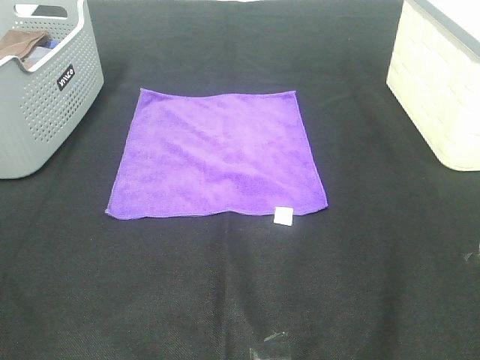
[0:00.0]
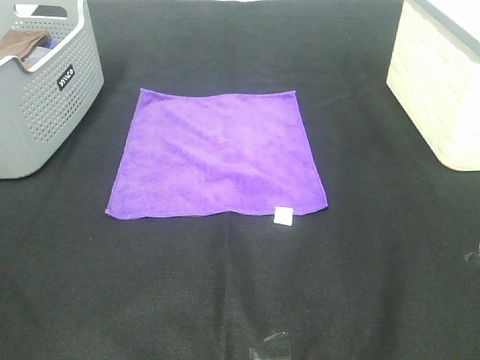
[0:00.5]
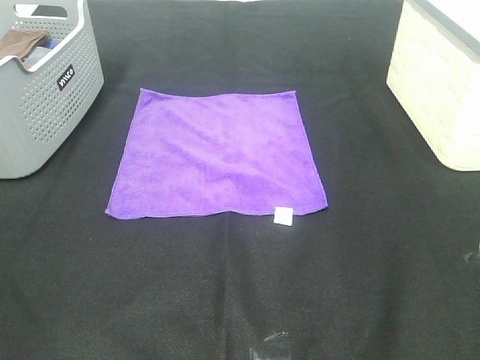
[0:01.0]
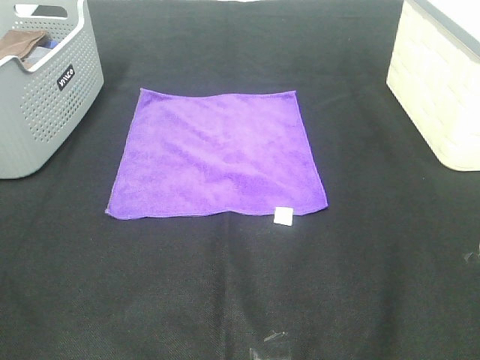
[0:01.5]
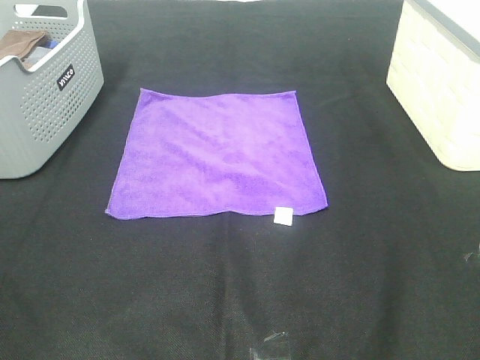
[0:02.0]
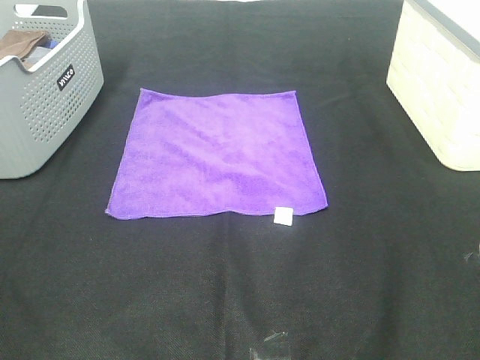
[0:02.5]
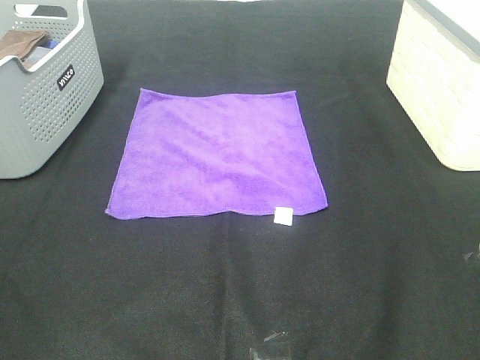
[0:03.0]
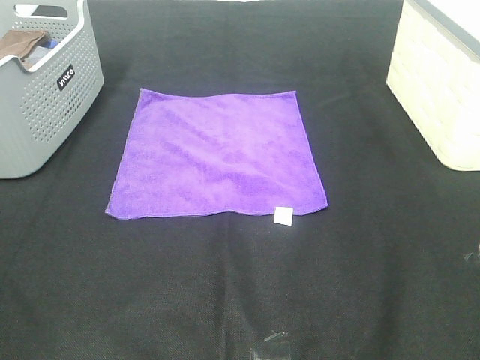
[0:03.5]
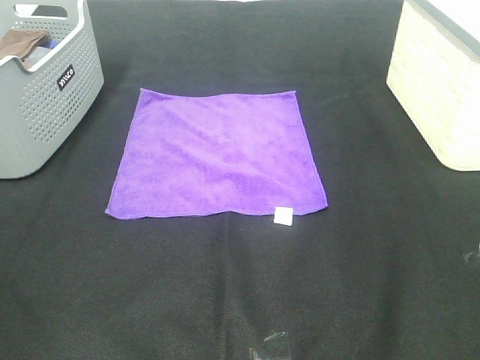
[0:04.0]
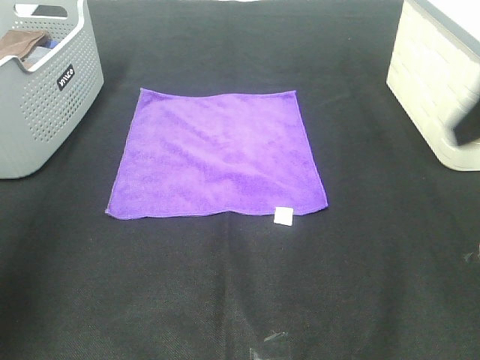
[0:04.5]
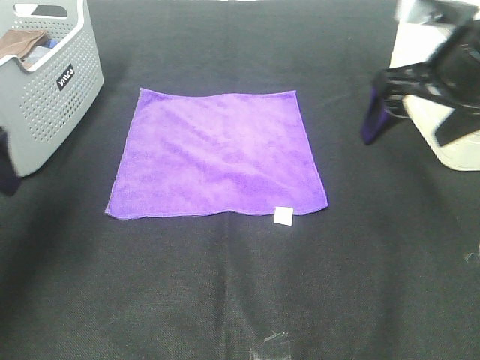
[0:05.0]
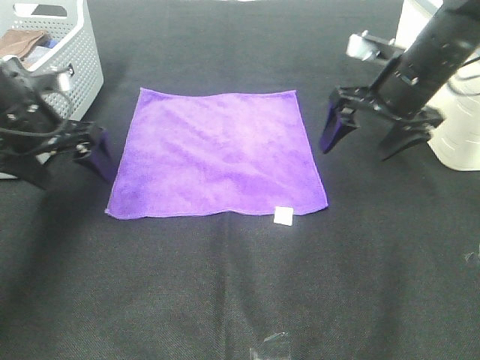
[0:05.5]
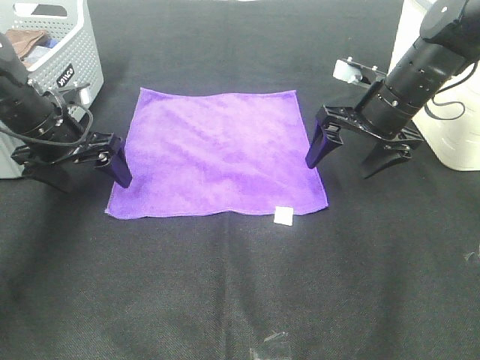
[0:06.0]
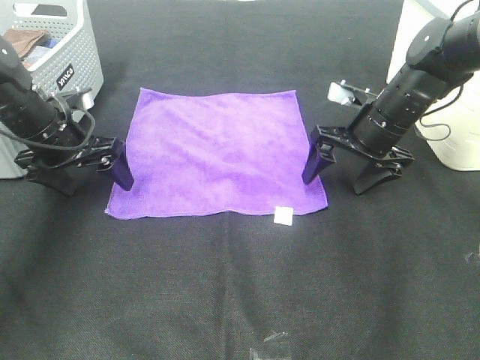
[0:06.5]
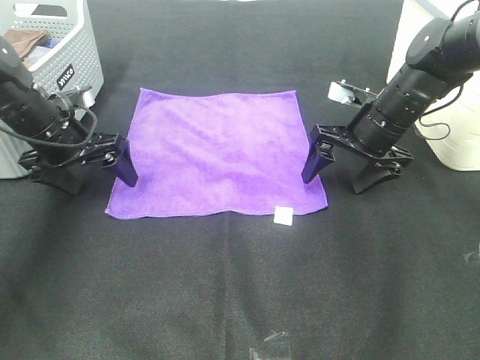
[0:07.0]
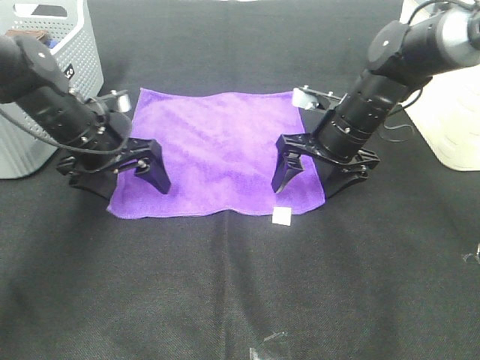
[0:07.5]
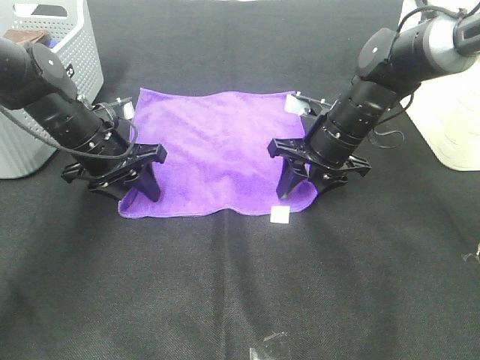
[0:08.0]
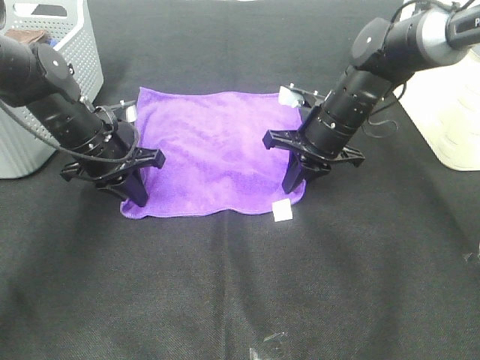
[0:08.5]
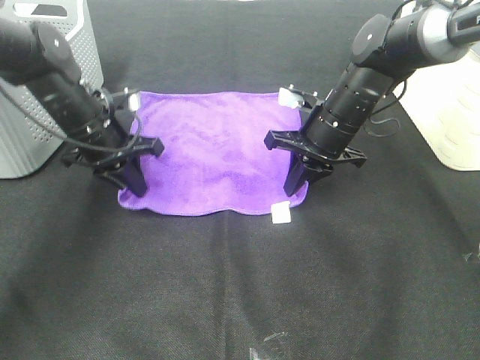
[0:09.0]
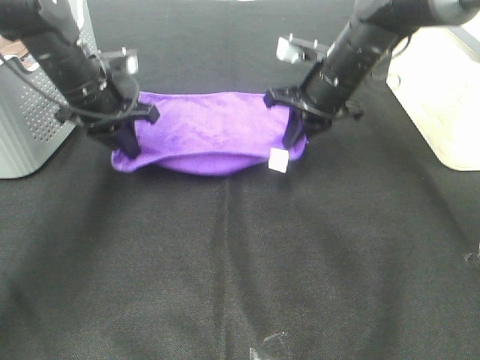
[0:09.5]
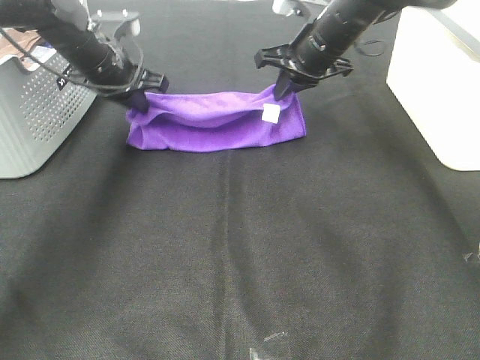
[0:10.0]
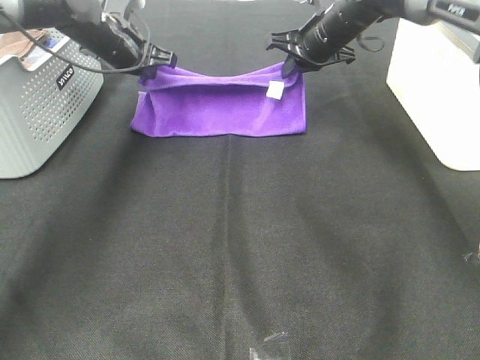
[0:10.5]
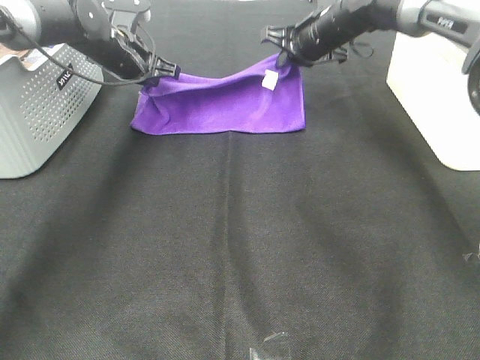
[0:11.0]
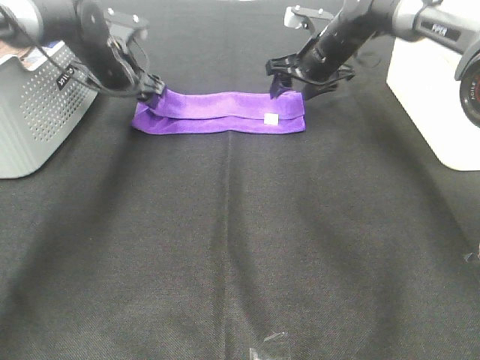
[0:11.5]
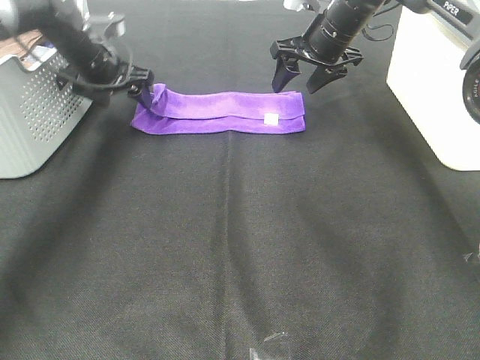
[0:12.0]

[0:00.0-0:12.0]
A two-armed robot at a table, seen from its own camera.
Task of the whole recording: Fold towels.
Step, 0:00.0 to 0:08.5: Left hand: grab the bottom left corner of purple towel.
Step, 0:00.0 to 0:08.5: Right hand: grab the bottom right corner of purple towel.
Step, 0:09.0 to 0:11.0: Left hand: fold the purple towel up.
Step, 0:09.0 to 0:11.0: Right hand: fold the purple towel up.
0:00.0 to 0:02.0: Both grippers stay put.
0:04.0 to 0:06.0: The left gripper travels forward and downward by some 40 cm; the right gripper moves forward, approximately 40 cm.
0:06.0 to 0:08.0: The left gripper moves to the right, roughly 5 cm, and closes, while the right gripper moves to the left and downward, approximately 10 cm, and closes.
0:08.0 to 0:10.0: Both grippers travel together forward and upward, some 10 cm. The right gripper closes.
0:10.0 to 0:12.0: The left gripper heads forward, covering some 5 cm, and opens, while the right gripper opens its fingers.

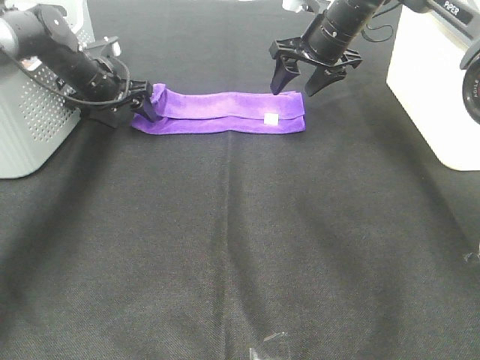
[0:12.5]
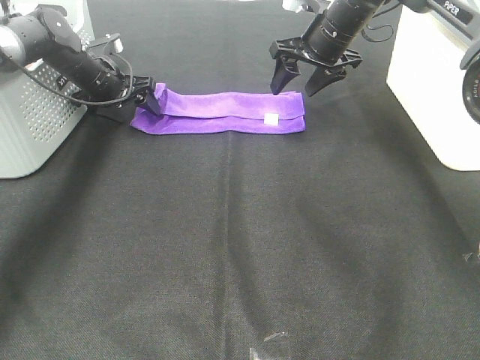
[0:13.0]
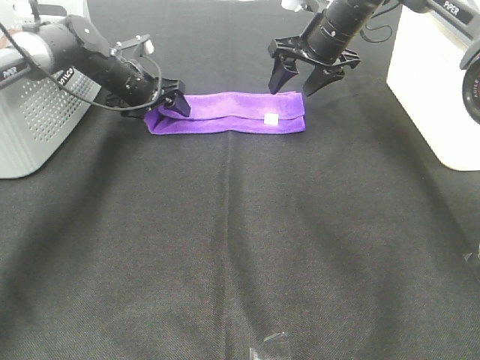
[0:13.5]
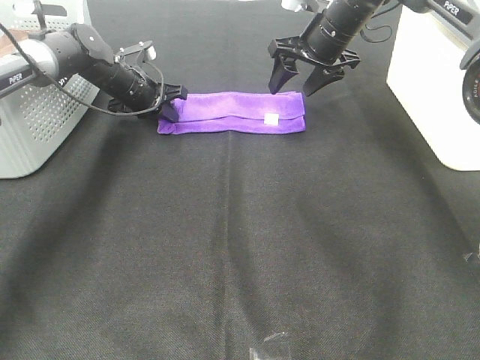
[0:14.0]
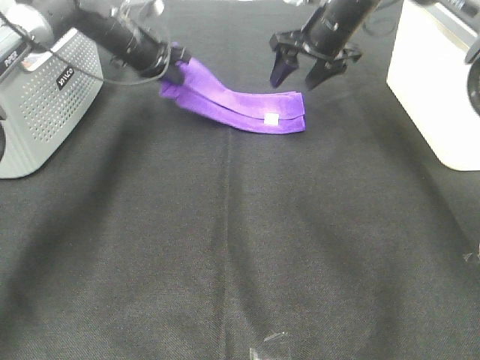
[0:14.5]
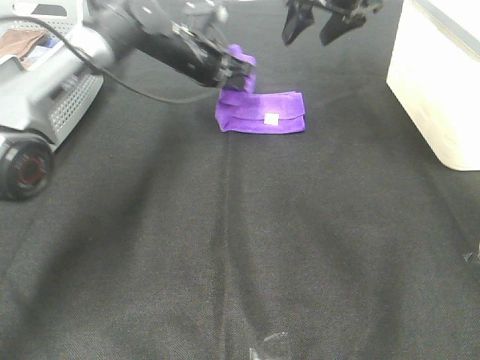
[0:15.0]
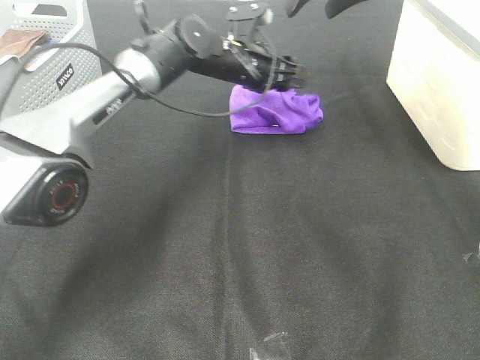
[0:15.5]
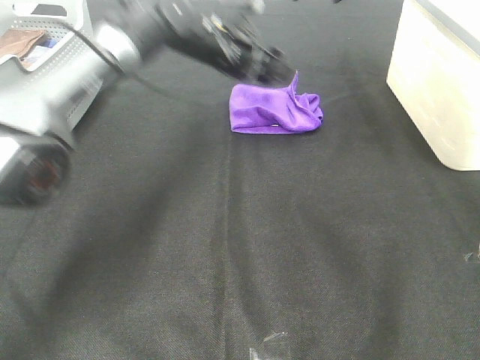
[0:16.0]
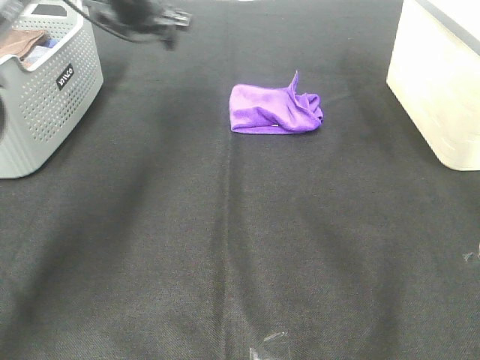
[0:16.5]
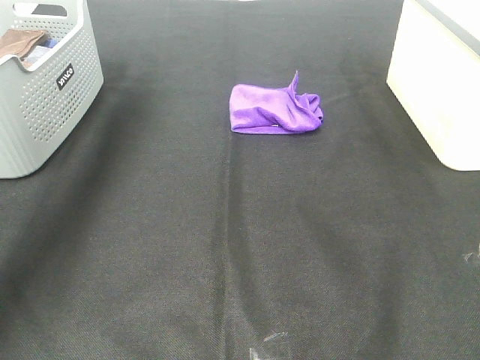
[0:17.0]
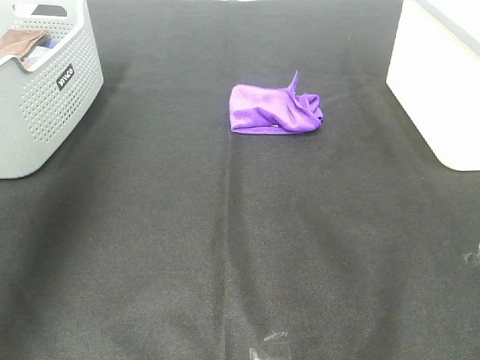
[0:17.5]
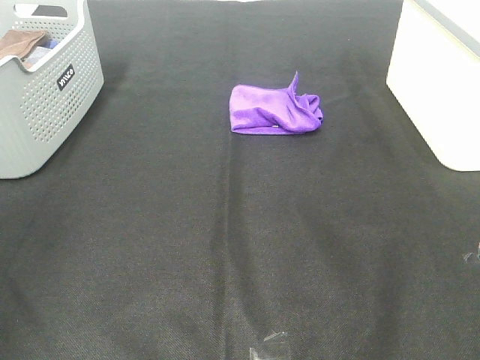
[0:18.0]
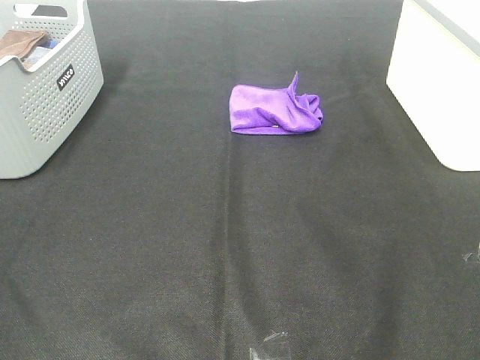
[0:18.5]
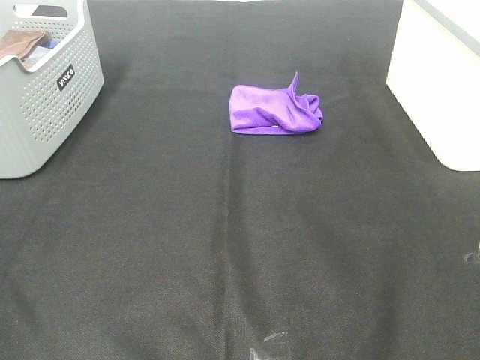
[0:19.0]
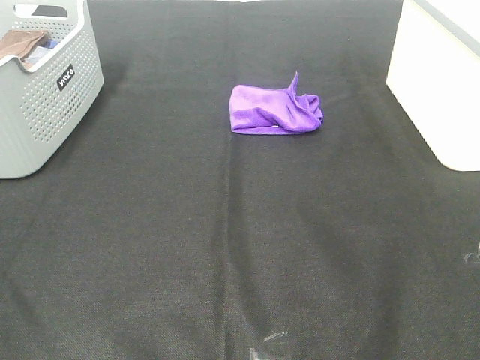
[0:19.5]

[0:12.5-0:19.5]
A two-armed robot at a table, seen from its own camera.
Task of the whole recording: Fold towels.
Step, 0:12.5 to 0:15.0: Left hand: fold the purple towel from left to right.
0:12.5 to 0:14.5: The left gripper shifts roughly 10 cm to the right and upward, and closes.
0:14.5 to 0:16.0: The left gripper heads to the right, covering some 10 cm, and opens up, while the right gripper travels upward by approximately 15 cm.
0:16.0 to 0:17.5: The left gripper heads backward, to the left and upward, covering approximately 40 cm; the right gripper goes approximately 40 cm backward.
0:17.5 to 0:19.5: The left gripper shifts roughly 30 cm backward and downward.

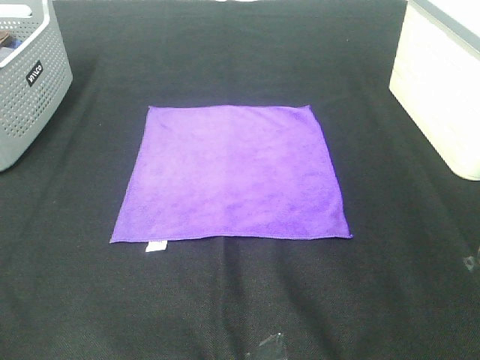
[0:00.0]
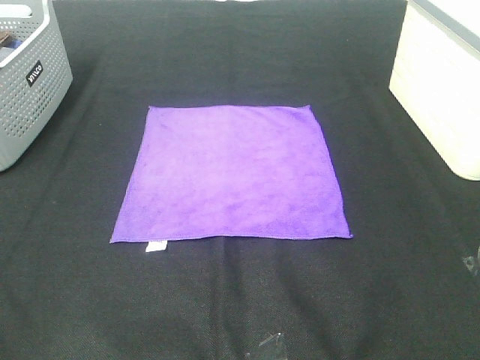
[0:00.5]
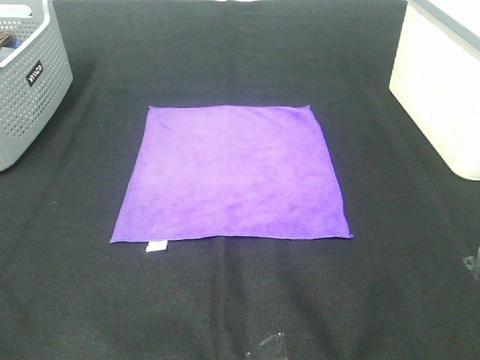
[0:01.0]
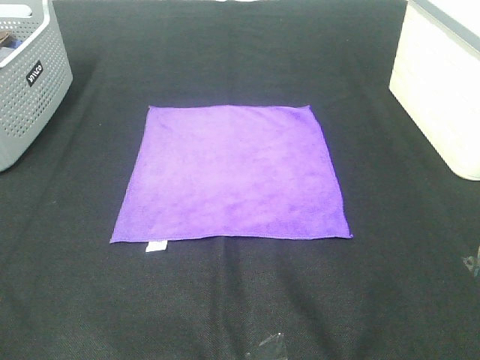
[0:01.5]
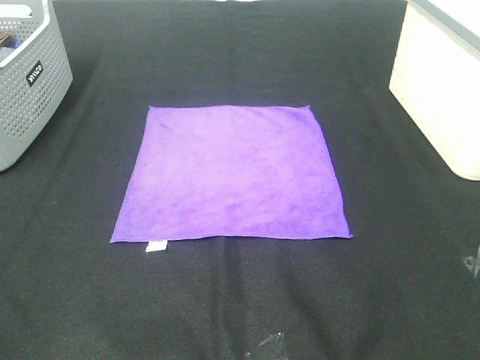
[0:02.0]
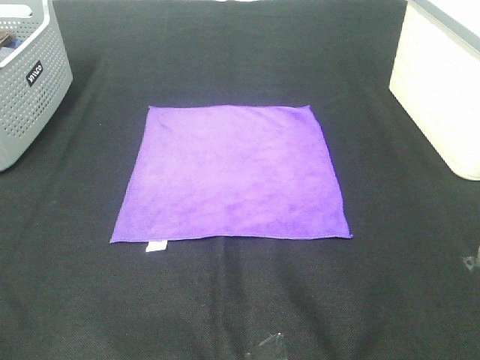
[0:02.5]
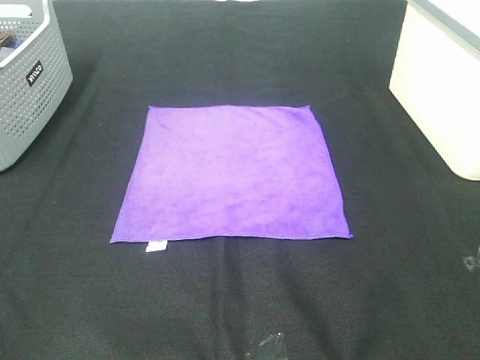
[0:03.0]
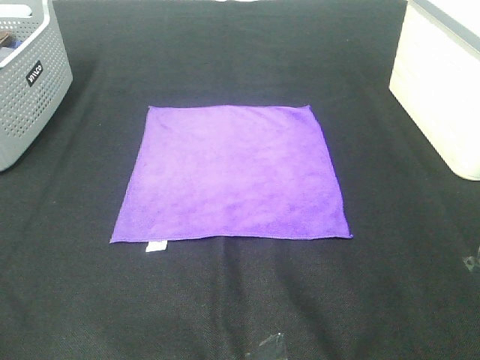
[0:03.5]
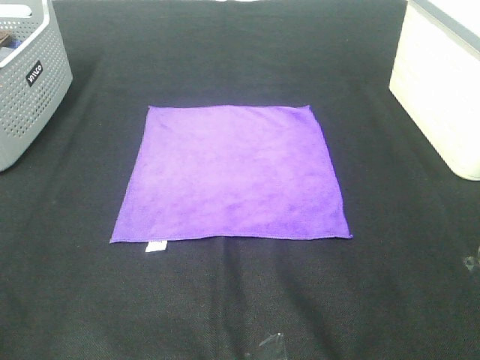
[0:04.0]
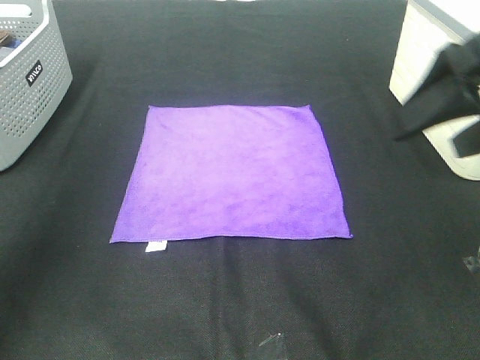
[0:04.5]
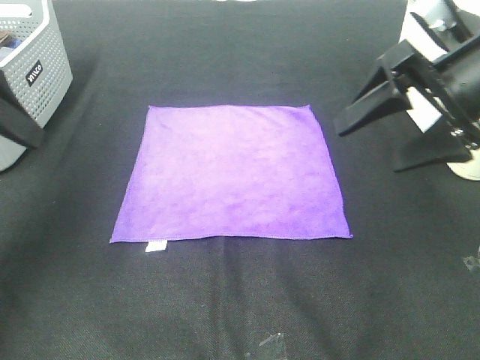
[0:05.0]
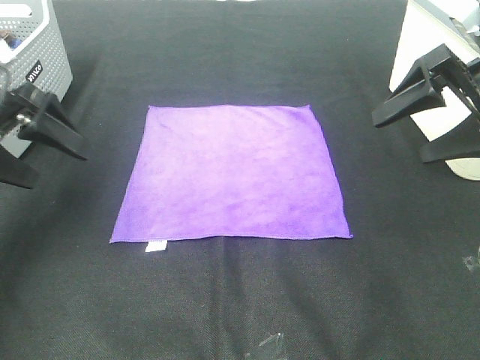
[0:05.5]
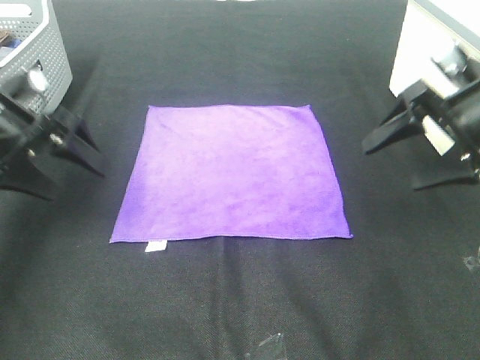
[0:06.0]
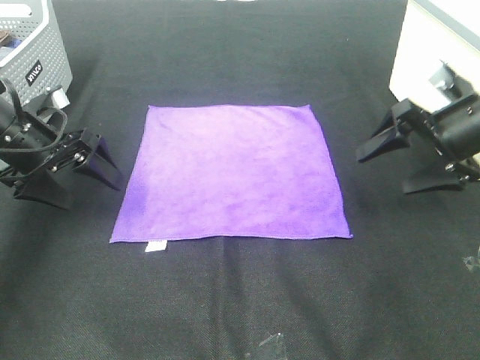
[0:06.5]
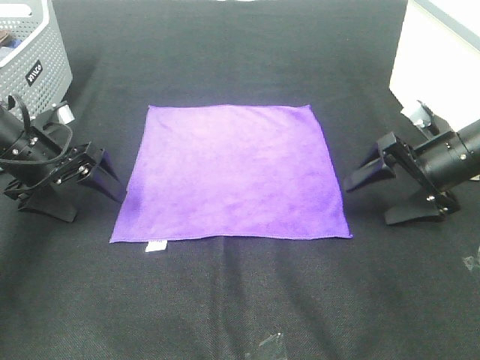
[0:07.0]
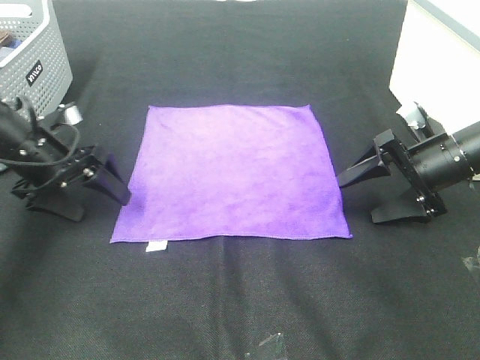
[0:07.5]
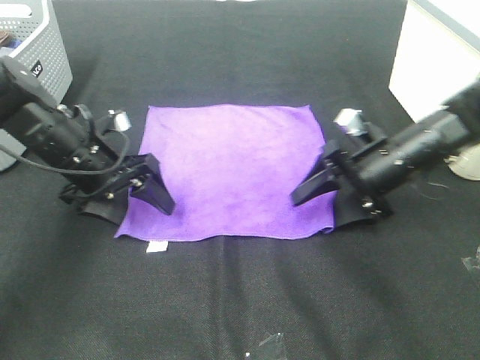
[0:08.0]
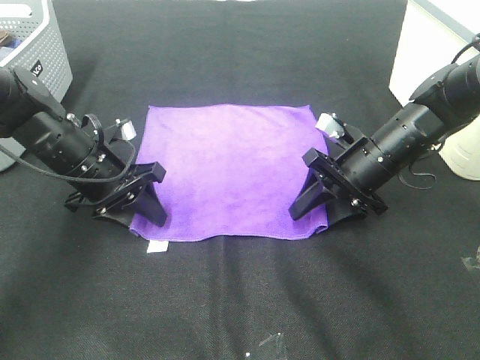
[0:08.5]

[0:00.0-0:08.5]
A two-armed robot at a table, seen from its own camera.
Task of the whole recording: Fold towels.
0:00.0 to 0:02.0: Neither gripper changes place.
0:04.0 to 0:06.5: Both grippers move forward and downward, some 35 cm.
0:06.5 to 0:08.5: The right gripper travels to the left and downward by some 10 cm, and closes its fingers; the left gripper goes roughly 10 cm to the right, and closes up.
